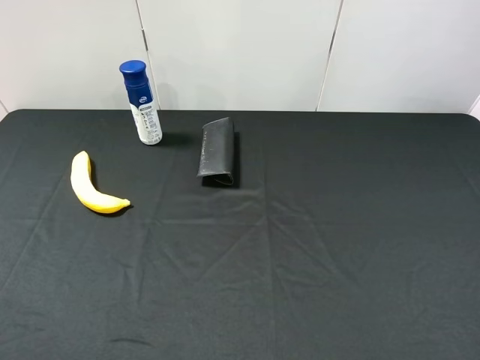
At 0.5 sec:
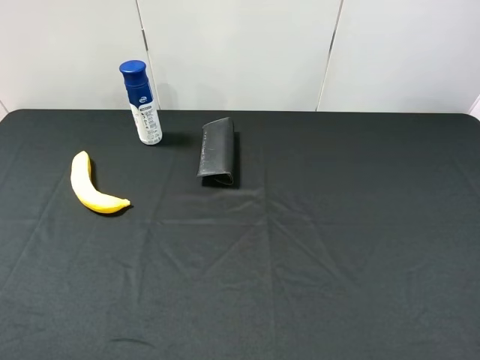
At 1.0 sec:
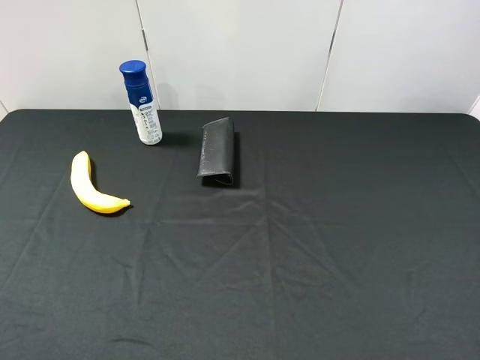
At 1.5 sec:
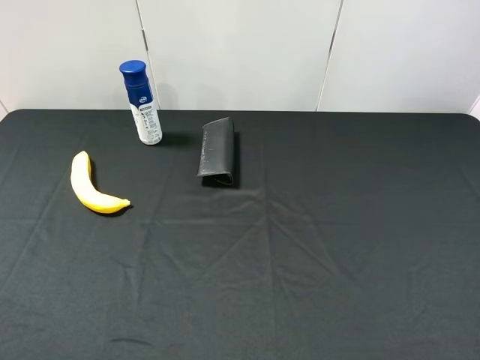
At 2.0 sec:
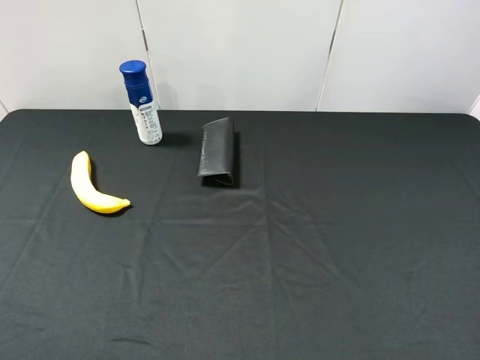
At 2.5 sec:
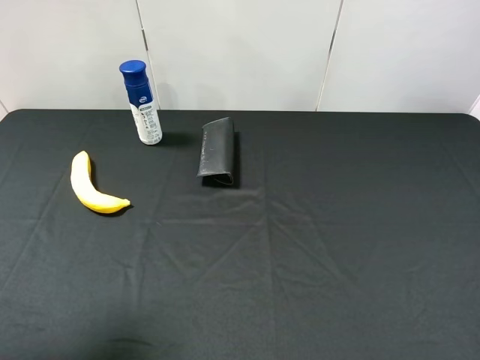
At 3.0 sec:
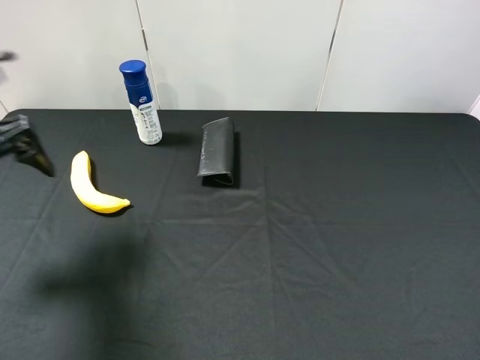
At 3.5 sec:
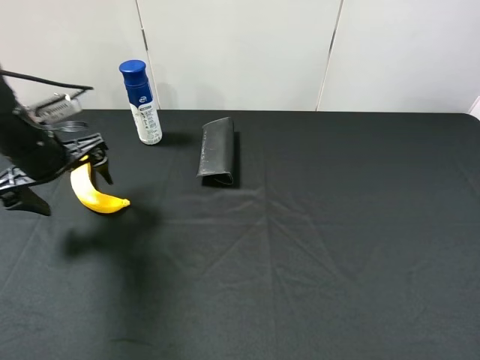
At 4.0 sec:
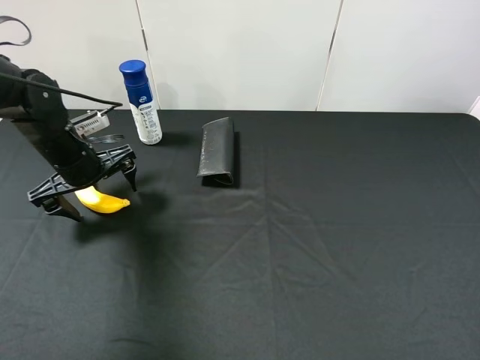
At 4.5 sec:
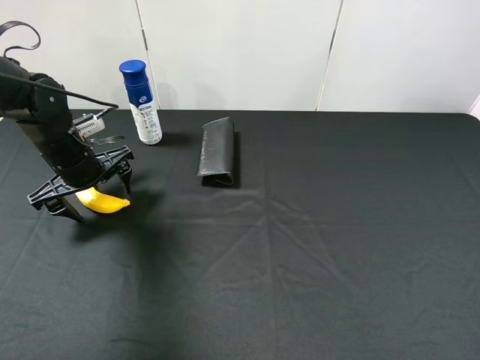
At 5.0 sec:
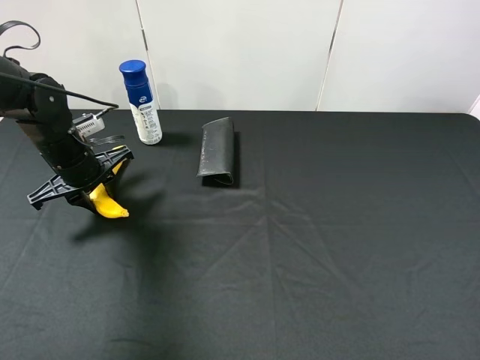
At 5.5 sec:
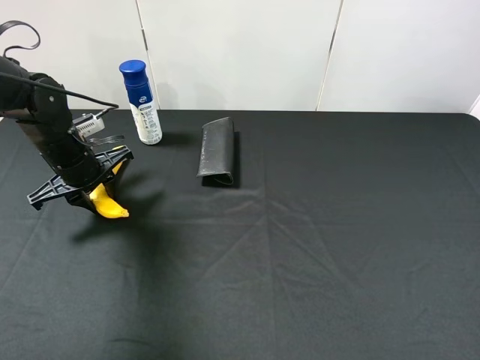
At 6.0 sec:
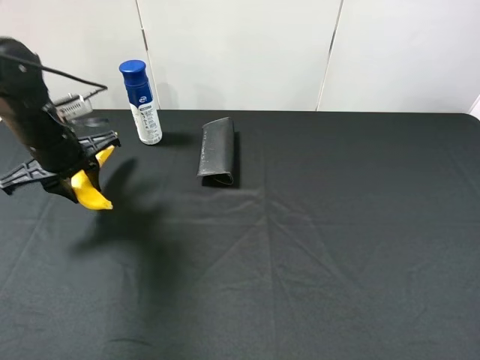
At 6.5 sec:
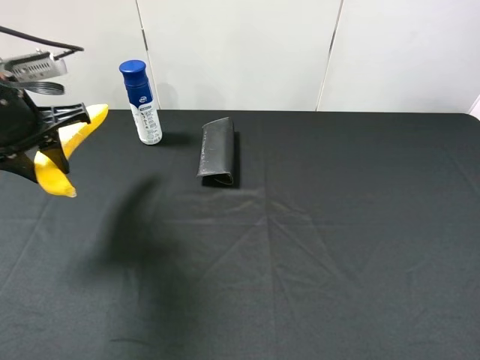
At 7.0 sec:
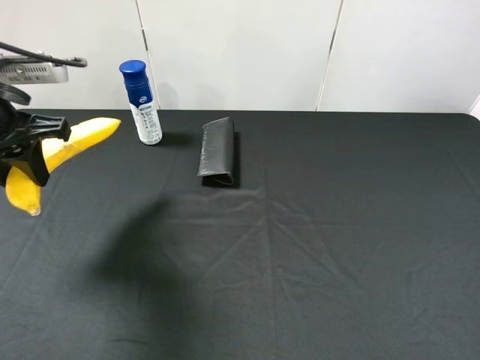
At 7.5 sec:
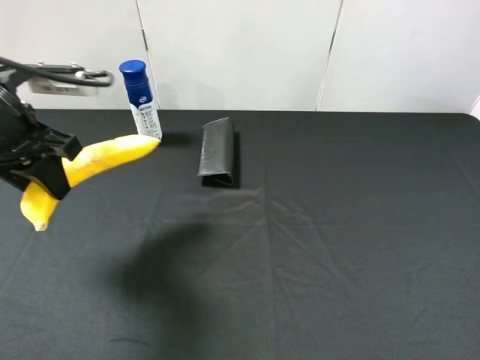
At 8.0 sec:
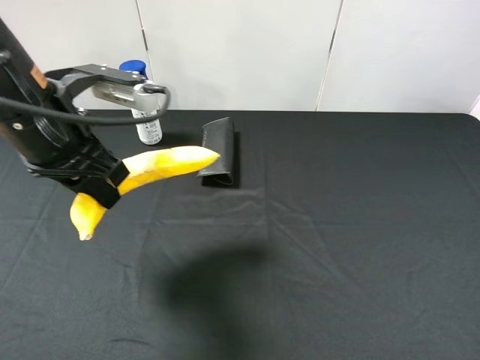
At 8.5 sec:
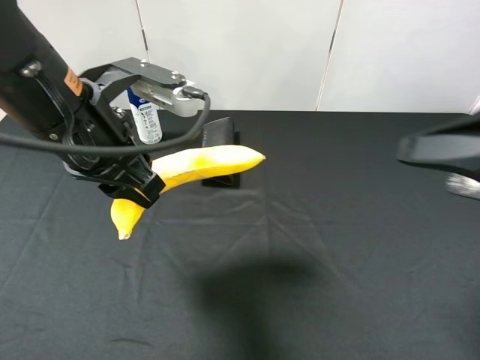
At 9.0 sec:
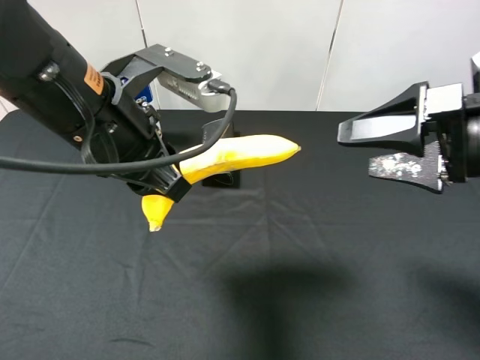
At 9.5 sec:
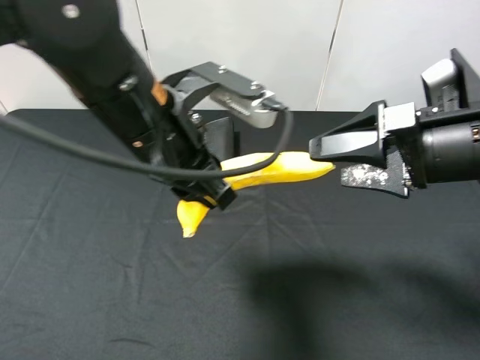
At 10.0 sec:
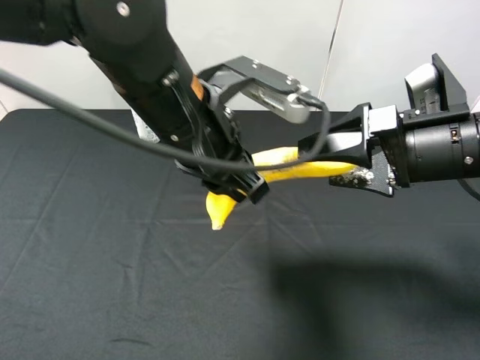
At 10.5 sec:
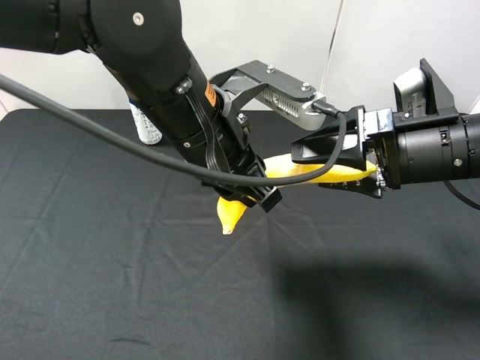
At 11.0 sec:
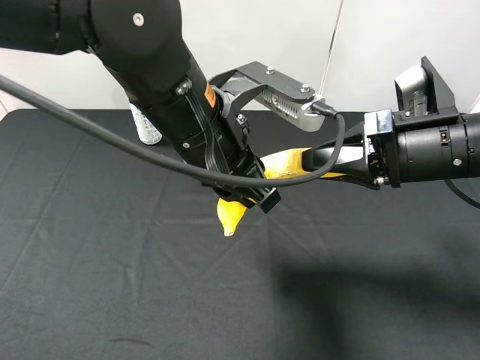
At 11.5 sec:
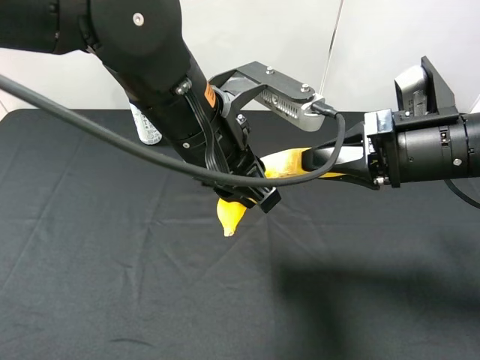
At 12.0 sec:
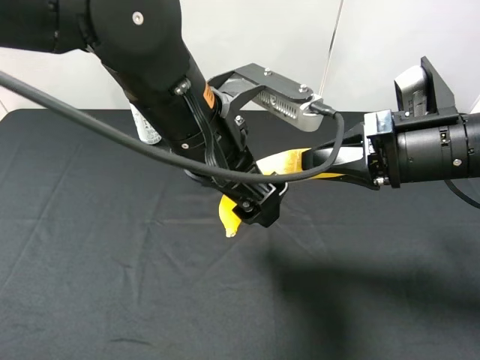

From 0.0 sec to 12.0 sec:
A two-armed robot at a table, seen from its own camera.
Task of the whole recording: use the left gripper to pick up the item and transfer it from the left gripper to the right gripper.
From 2.0 sec to 4.0 sec: The left gripper heads forward and downward, covering about 35 cm.
From 4.0 sec to 6.0 sec: The left gripper goes roughly 5 cm upward, and closes up.
From 6.0 sec to 8.0 sec: The left gripper goes approximately 15 cm backward, upward and to the right.
From 8.0 sec to 10.0 sec: The right gripper is displaced forward and to the left by some 20 cm; the left gripper goes approximately 15 cm to the right.
From 10.0 sec to 12.0 sec: The right gripper closes. Meanwhile the left gripper opens.

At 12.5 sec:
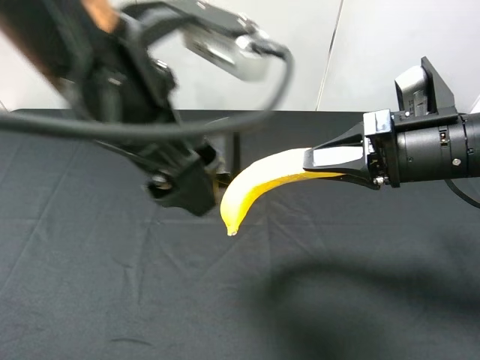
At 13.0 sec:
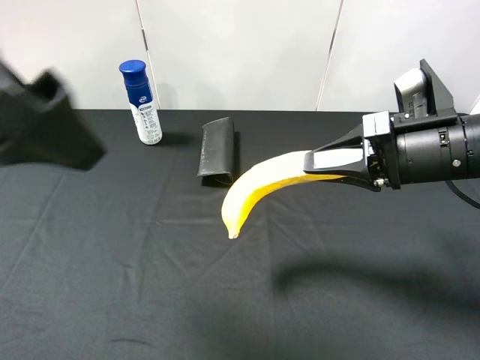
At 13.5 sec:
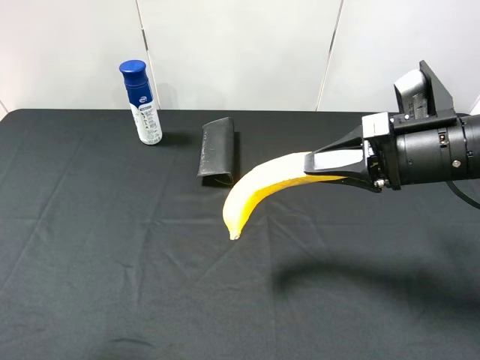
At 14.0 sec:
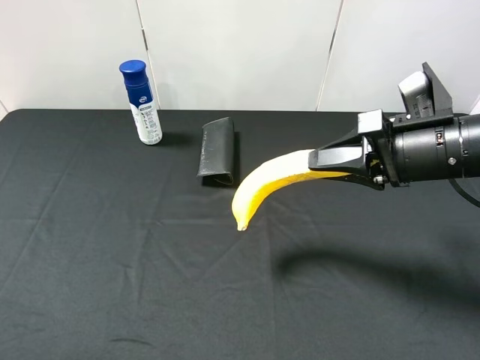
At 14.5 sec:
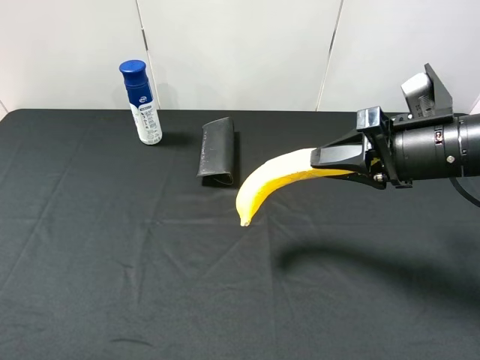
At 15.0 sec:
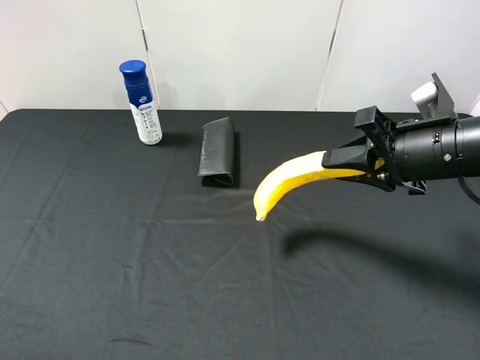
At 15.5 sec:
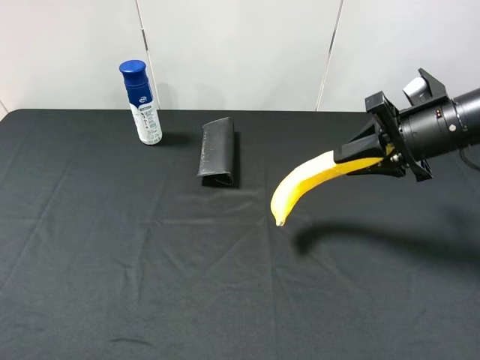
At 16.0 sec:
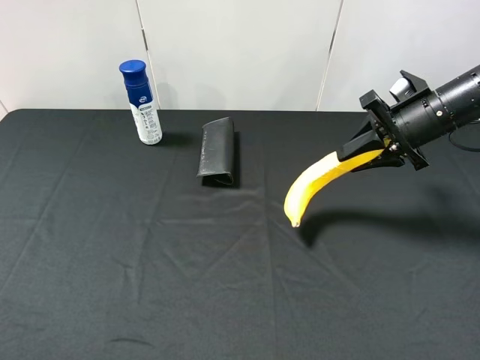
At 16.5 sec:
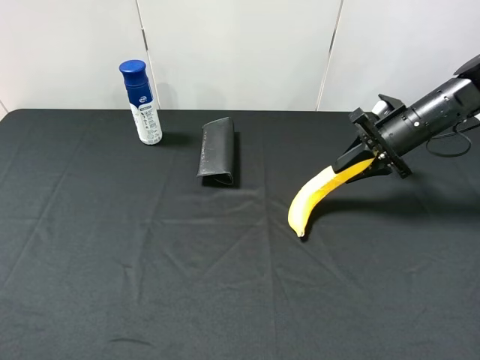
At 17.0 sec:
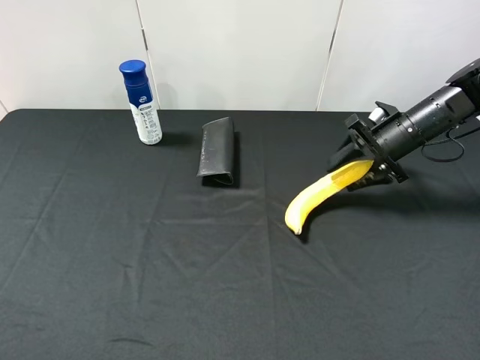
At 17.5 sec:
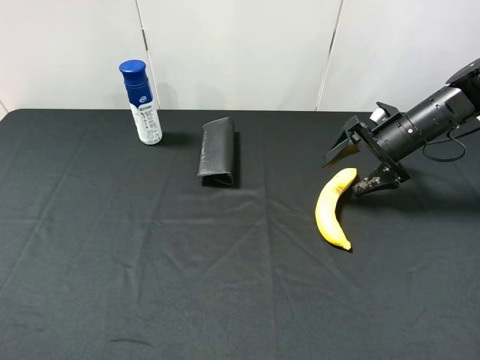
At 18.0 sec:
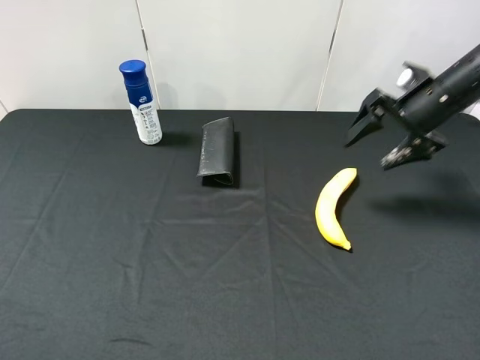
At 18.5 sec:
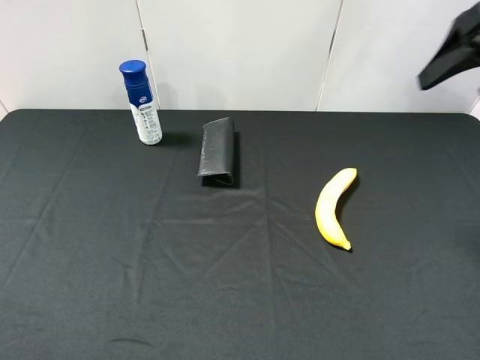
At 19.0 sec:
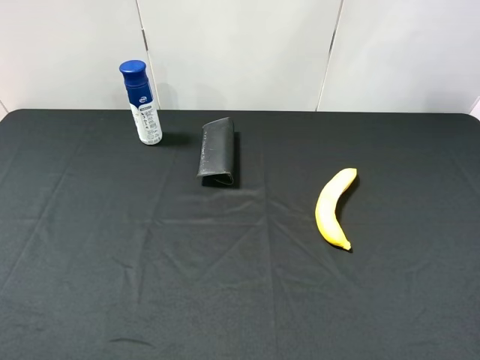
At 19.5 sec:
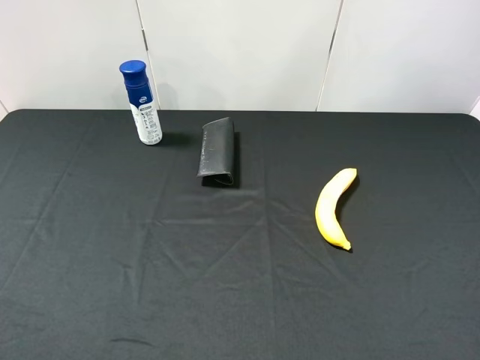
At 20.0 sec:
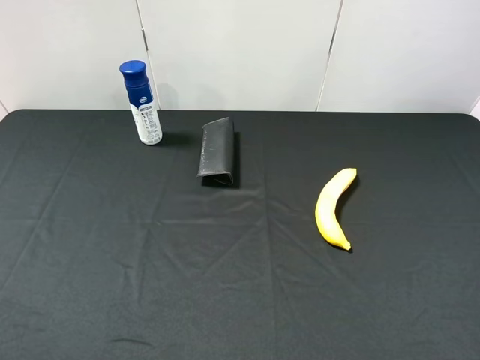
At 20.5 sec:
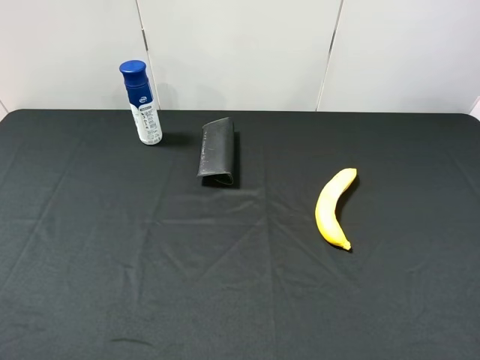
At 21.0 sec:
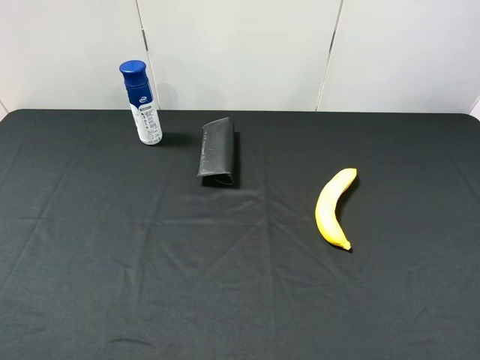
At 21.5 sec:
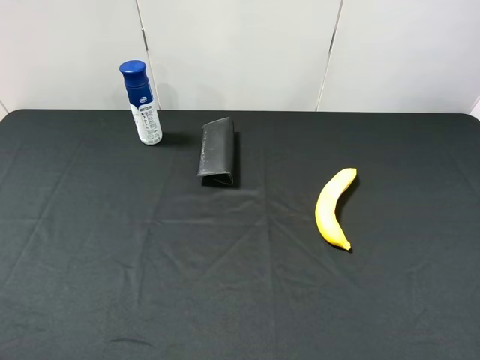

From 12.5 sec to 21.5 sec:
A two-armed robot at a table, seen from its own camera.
Task of the whole recording: use the left gripper to pick up the item and transfer it from the left gripper to the right gripper.
From 12.5 sec to 14.5 sec: The left gripper is displaced to the left and backward by roughly 25 cm.
From 14.5 sec to 17.0 sec: The right gripper shifts approximately 20 cm forward and downward, and opens up.
From 17.0 sec to 19.5 sec: The right gripper goes about 40 cm backward and upward.
